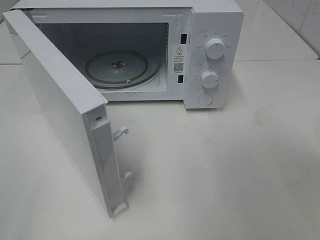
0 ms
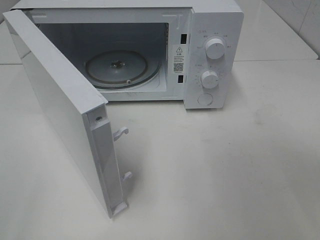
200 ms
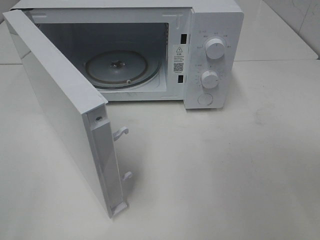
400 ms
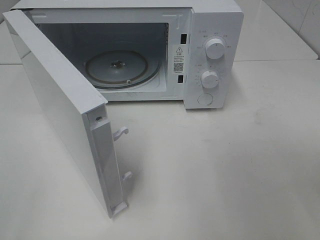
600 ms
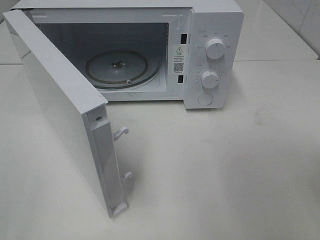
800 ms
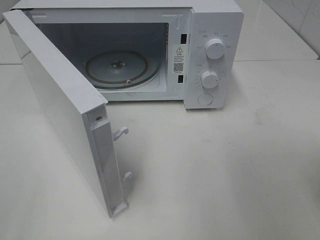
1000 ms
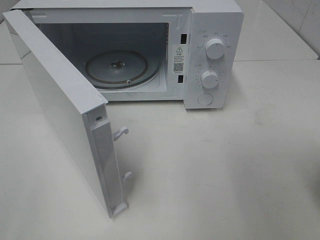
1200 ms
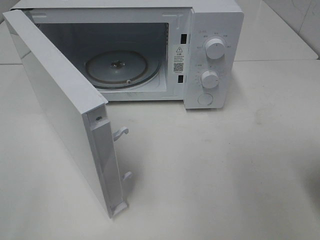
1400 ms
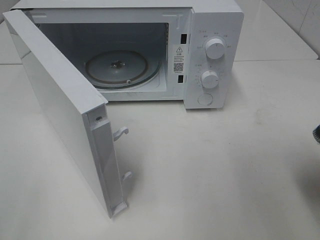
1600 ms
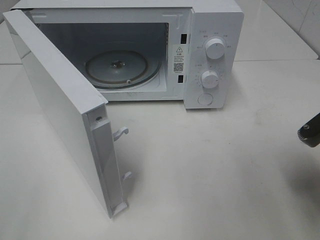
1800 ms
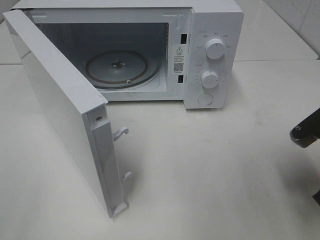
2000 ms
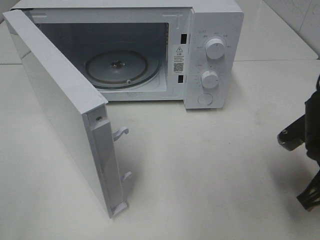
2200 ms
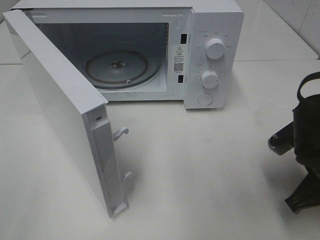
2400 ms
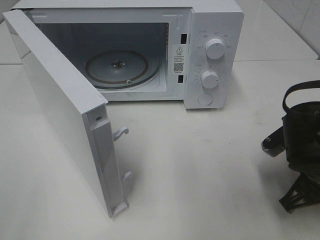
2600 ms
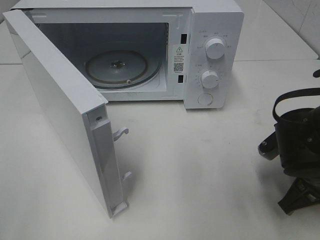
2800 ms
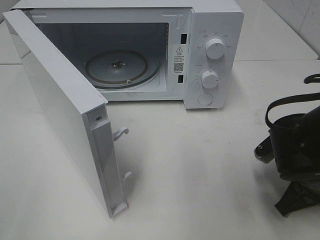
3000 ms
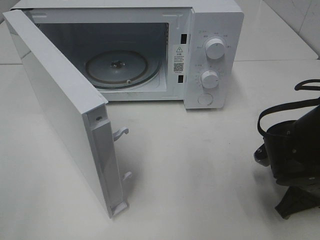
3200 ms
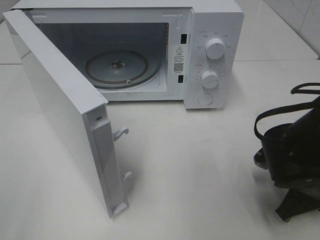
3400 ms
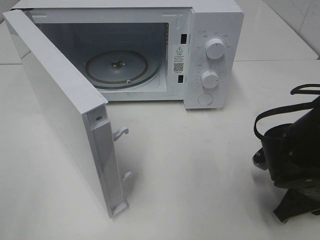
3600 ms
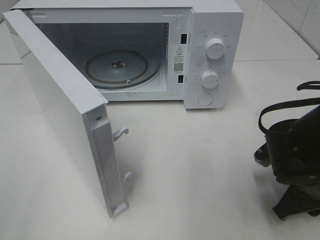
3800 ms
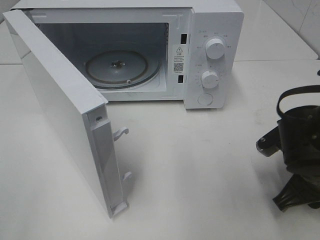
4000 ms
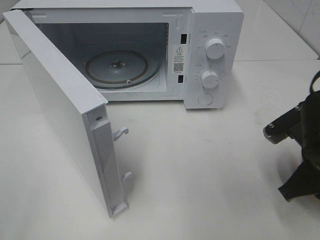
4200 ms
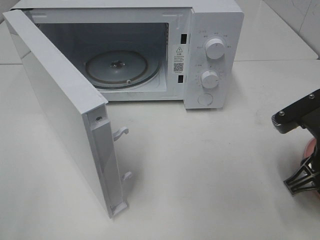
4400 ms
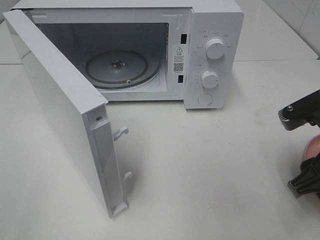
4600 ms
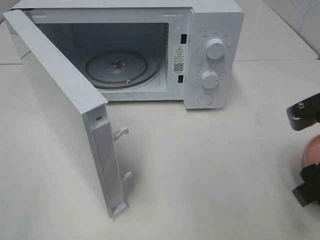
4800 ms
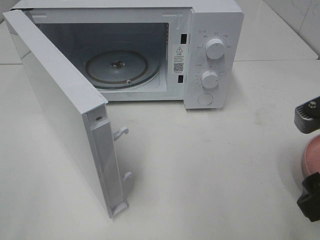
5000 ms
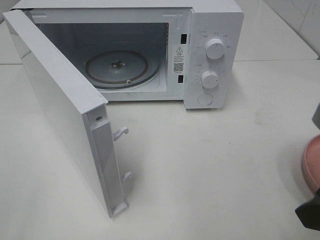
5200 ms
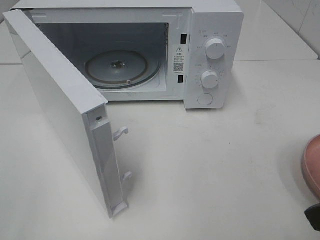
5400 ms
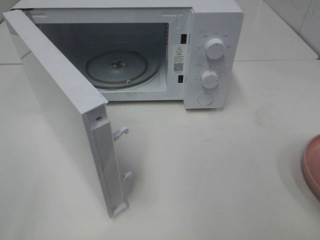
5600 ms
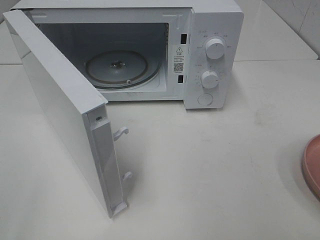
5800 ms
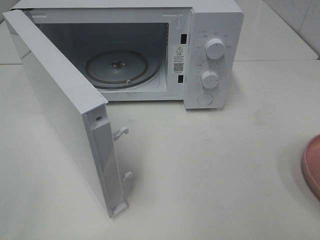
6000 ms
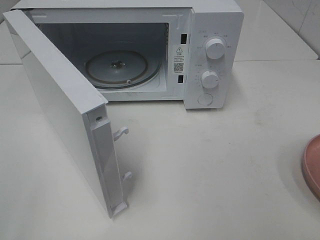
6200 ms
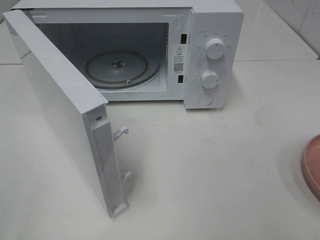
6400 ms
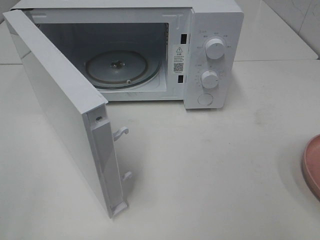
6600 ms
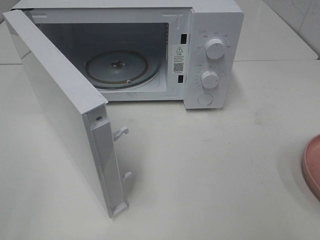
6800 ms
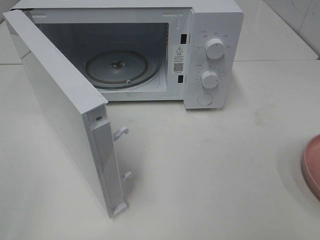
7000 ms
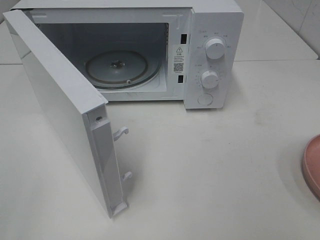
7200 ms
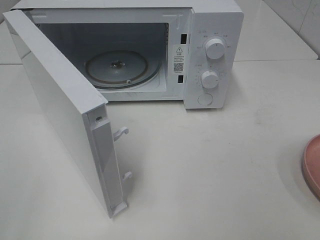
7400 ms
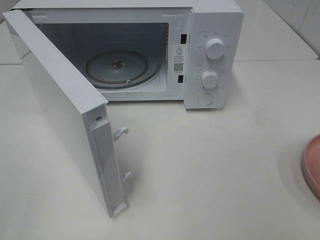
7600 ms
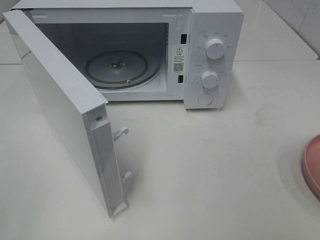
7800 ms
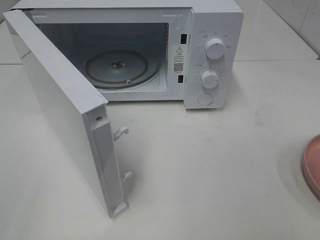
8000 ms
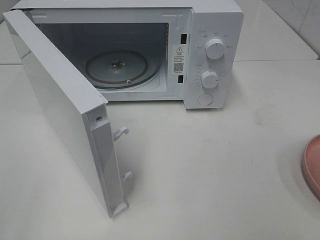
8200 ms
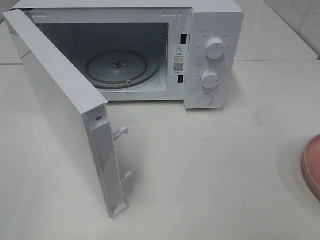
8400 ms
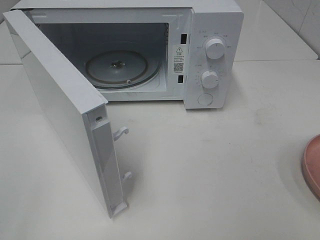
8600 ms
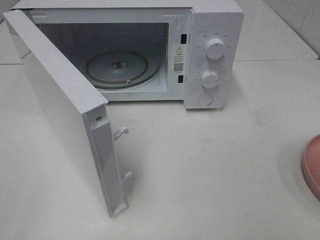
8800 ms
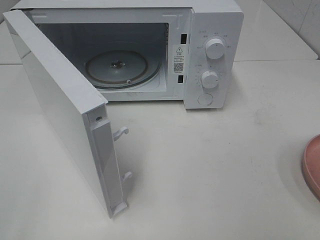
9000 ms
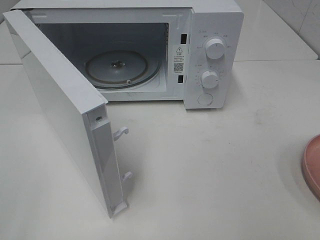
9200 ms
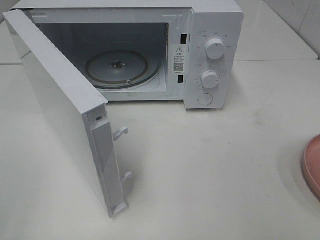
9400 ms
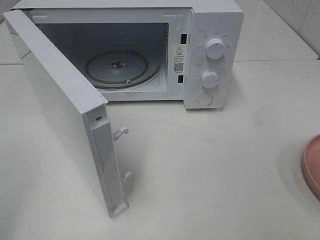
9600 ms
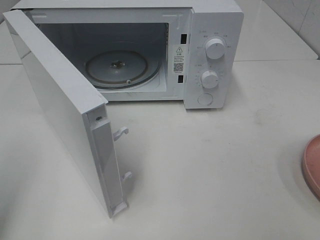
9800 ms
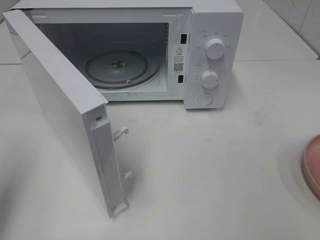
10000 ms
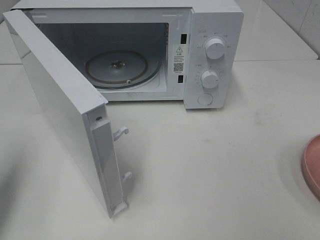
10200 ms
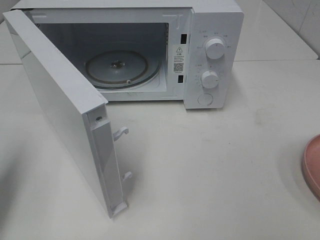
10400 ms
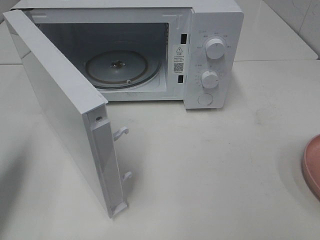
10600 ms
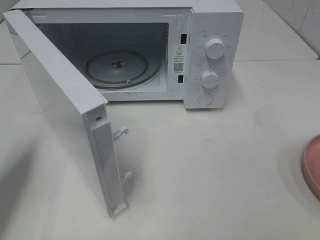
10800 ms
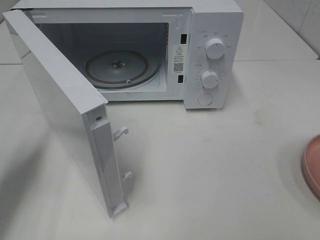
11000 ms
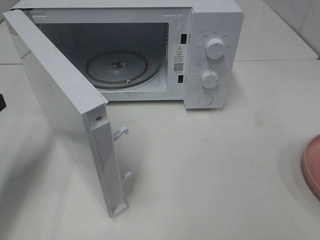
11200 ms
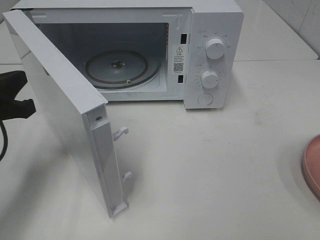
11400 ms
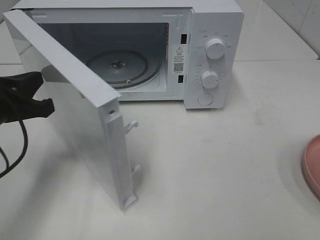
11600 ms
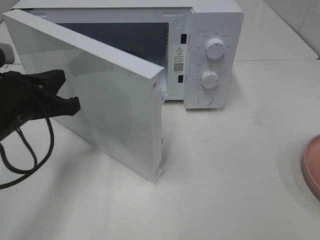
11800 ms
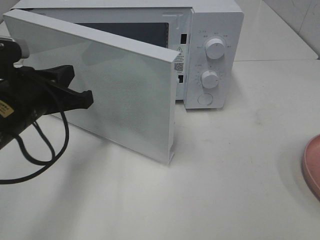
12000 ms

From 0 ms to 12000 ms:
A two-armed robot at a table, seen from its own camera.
Task of the whole recording: Heat the burger.
Step, from 0 ms to 3800 ms: Right hand: place the plate on the table.
From 0 ms to 1600 ms: The right gripper shifts some 5 cm forward.
From 1600 ms to 3000 ms: The right gripper is displaced downward by roughly 10 cm.
From 3000 ms to 4400 ms: The right gripper moves upward, approximately 5 cm, and opens up.
From 4400 ms to 6000 ms: The right gripper heads backward and upward, covering some 15 cm.
From 7600 ms to 9000 ms: Both grippers stay put.
From 9000 ms to 10400 ms: The left gripper moves forward, roughly 15 cm, and closes.
From 10400 ms to 12000 ms: The left gripper shifts approximately 15 cm to the right, forward and downward.

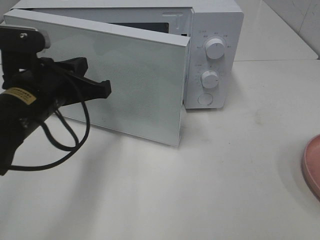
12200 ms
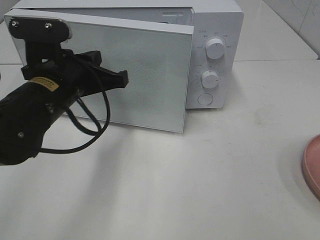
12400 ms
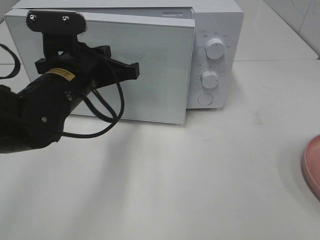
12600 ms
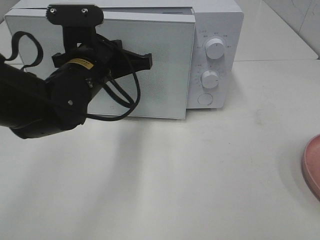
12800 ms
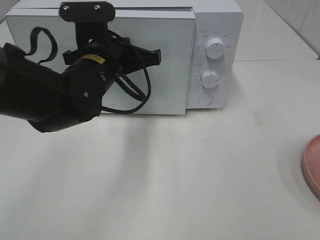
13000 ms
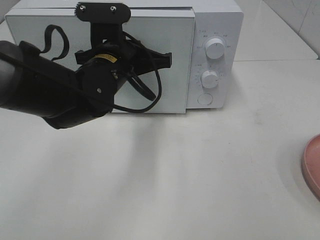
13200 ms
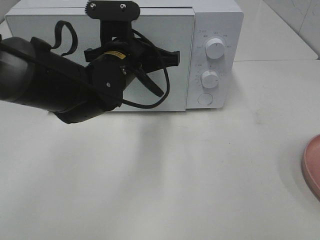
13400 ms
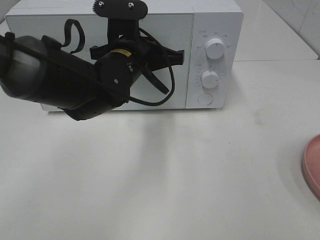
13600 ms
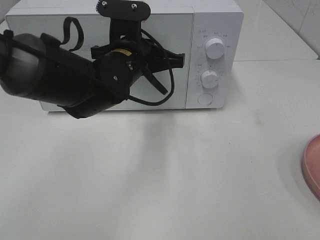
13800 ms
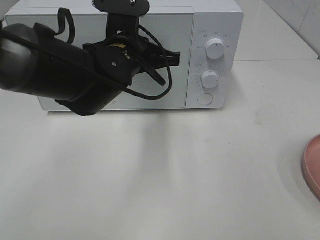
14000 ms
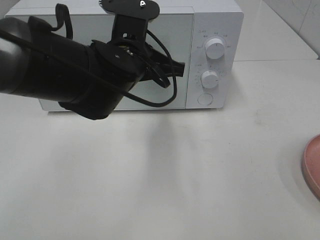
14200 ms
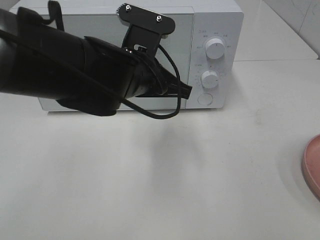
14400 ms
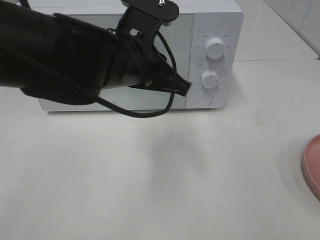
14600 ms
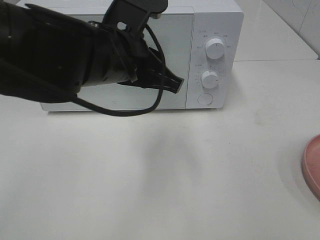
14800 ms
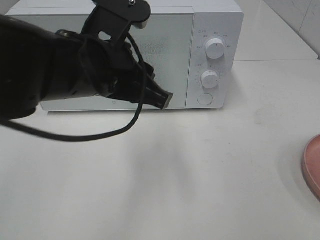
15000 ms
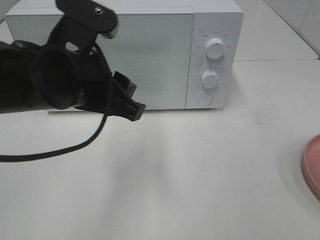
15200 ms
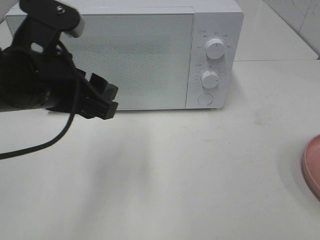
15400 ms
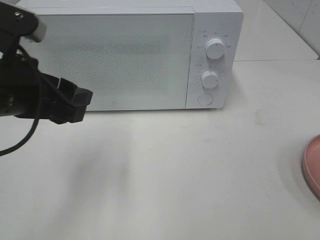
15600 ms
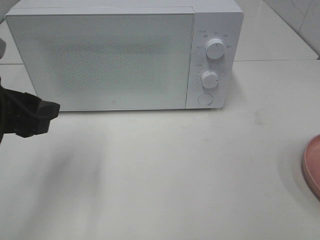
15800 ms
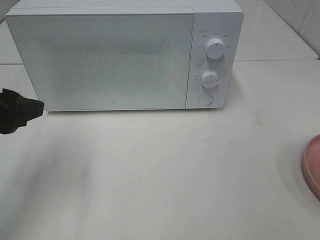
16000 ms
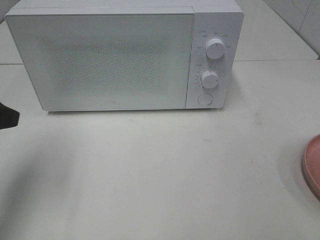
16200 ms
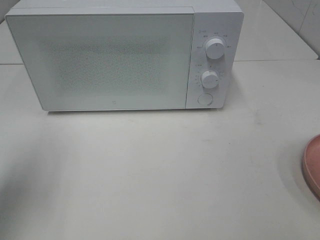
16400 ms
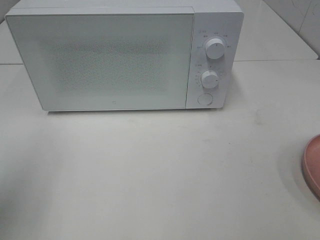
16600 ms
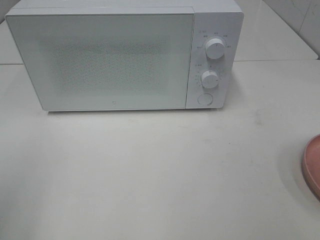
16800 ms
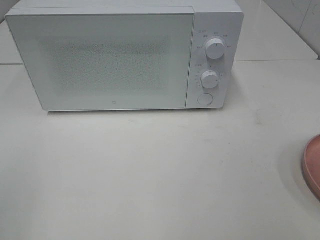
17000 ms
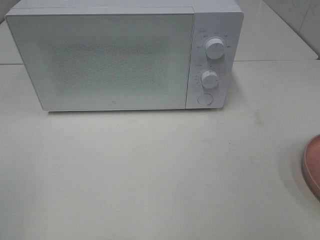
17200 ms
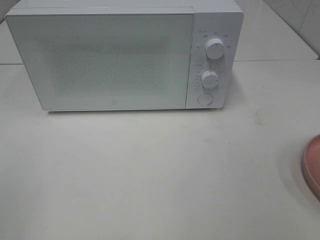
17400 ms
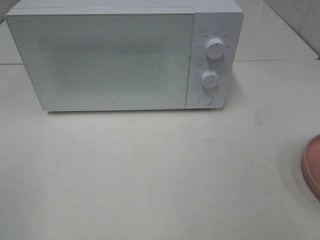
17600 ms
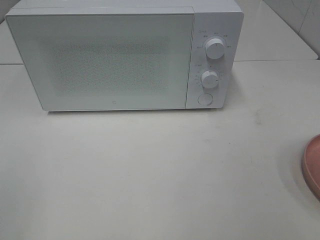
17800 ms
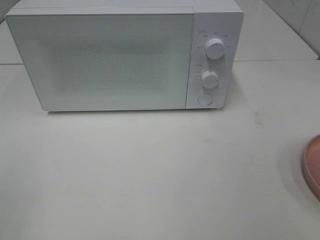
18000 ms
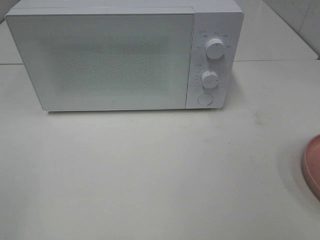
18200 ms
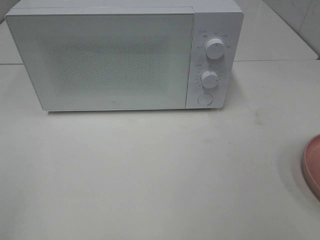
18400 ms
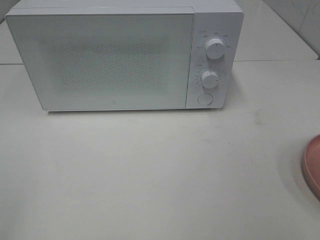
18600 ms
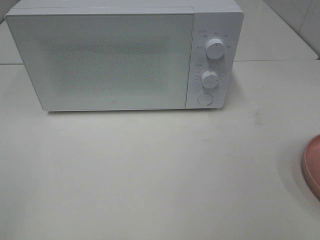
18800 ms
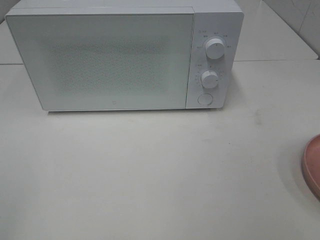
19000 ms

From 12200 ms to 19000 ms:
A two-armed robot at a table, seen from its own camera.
Task of the whole recording: Heat the burger.
Step, from 12200 ms to 14200 ms: Left hand: close the microwave door.
From 12200 ms to 13600 ms: The left gripper travels to the right and forward by roughly 15 cm.
From 13600 ms to 15000 ms: The left gripper heads backward and upward, covering roughly 10 cm, and opens.
From 15000 ms to 16200 ms: The left gripper goes some 20 cm to the left.
From 16200 ms to 17600 ms: The left gripper is displaced backward by roughly 20 cm.

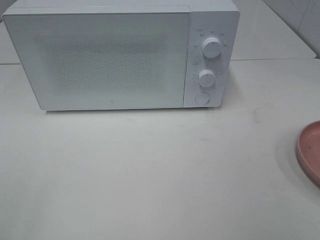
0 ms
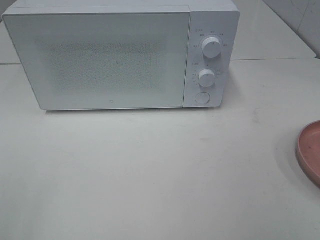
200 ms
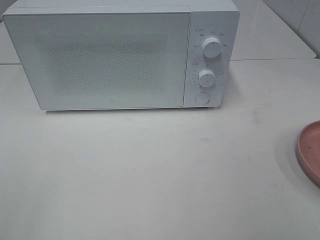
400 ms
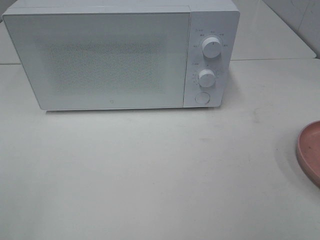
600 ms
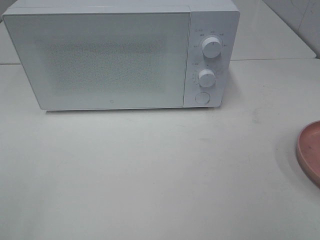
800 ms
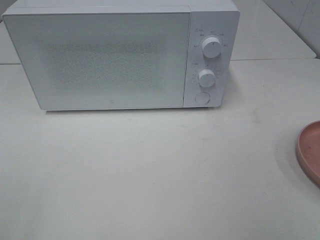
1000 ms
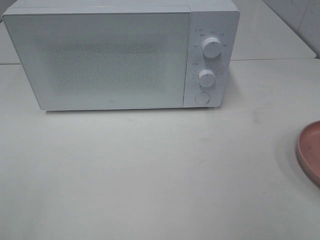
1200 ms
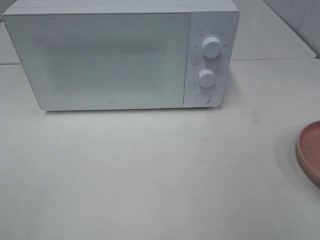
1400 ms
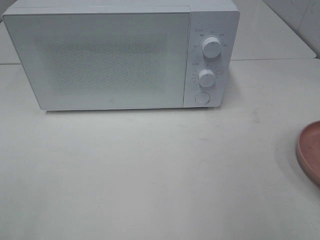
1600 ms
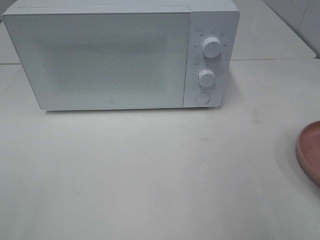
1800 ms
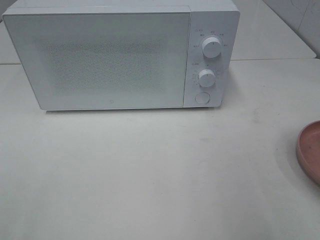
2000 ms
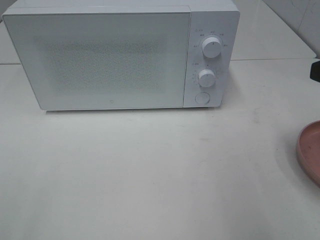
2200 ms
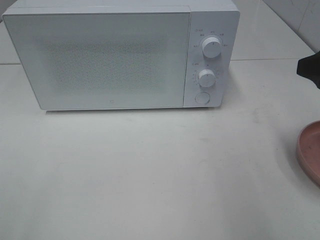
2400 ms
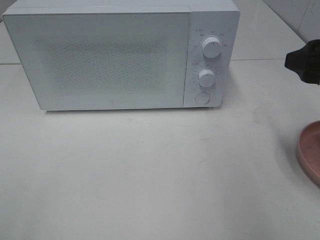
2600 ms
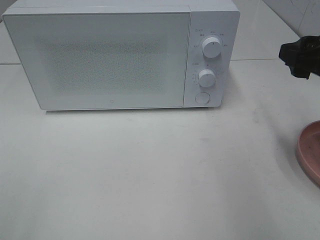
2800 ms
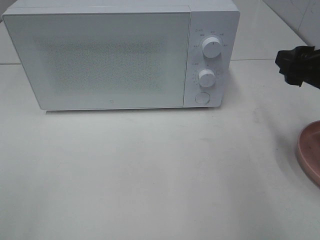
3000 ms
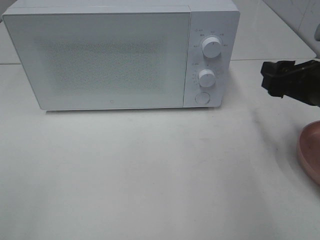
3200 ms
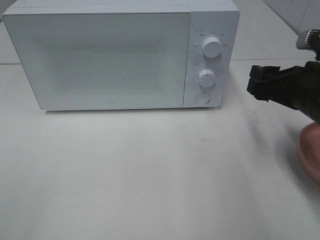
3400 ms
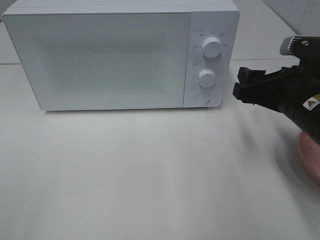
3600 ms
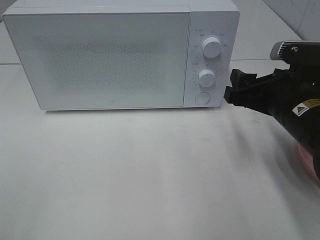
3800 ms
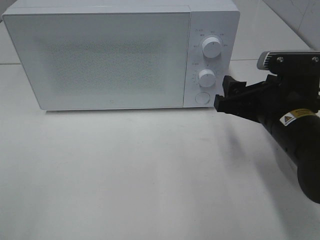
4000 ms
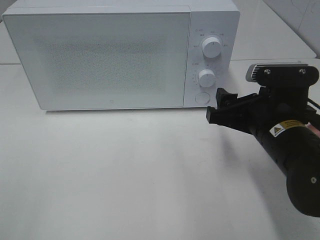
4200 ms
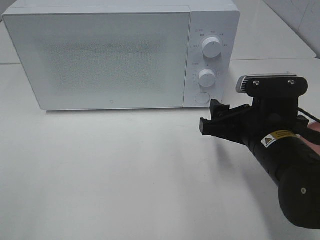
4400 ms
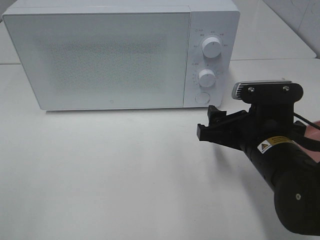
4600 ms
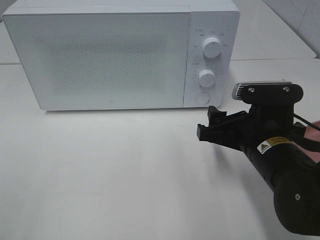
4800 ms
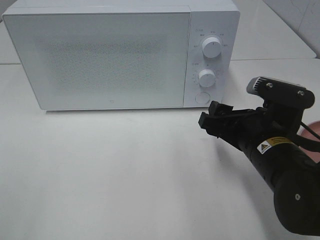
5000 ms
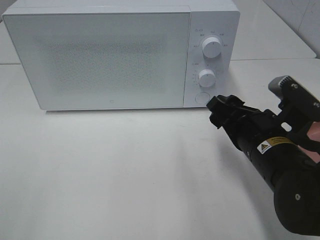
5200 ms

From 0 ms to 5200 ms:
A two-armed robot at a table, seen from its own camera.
Task of the whole recording: Heat the burger.
From 1800 ms to 3400 ms: The right gripper travels forward and downward by roughly 15 cm.
From 3400 ms to 5200 ms: The right gripper shifts some 10 cm to the left and downward.
